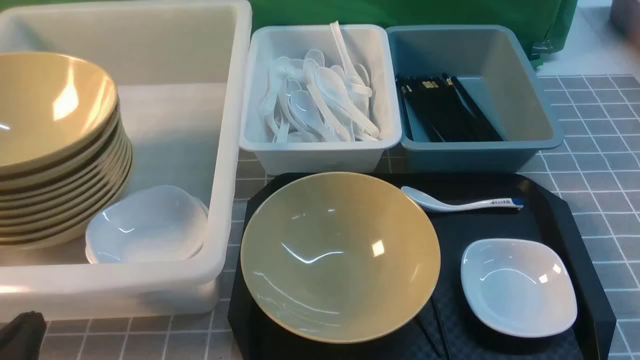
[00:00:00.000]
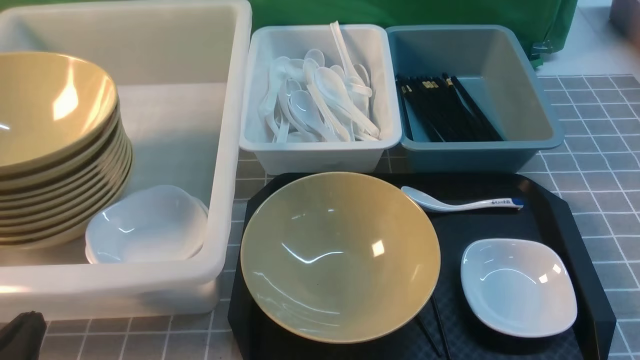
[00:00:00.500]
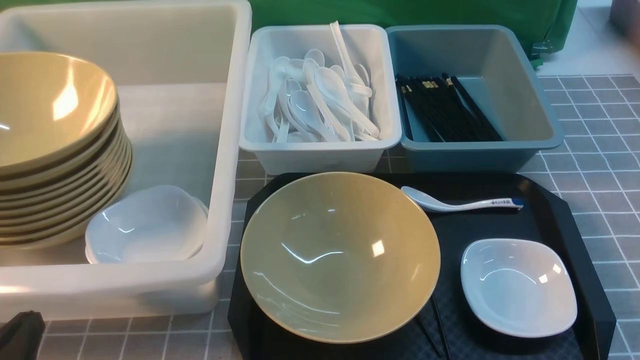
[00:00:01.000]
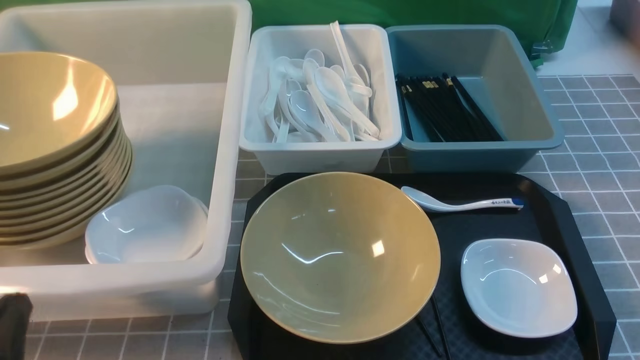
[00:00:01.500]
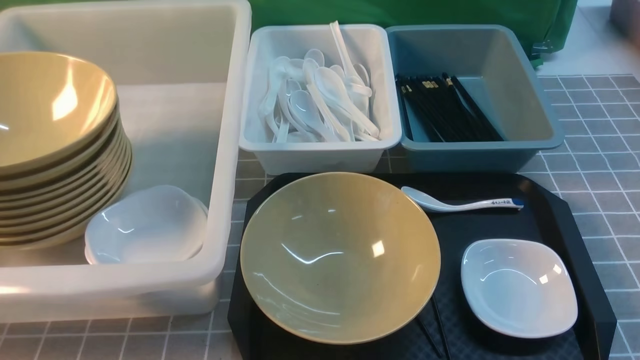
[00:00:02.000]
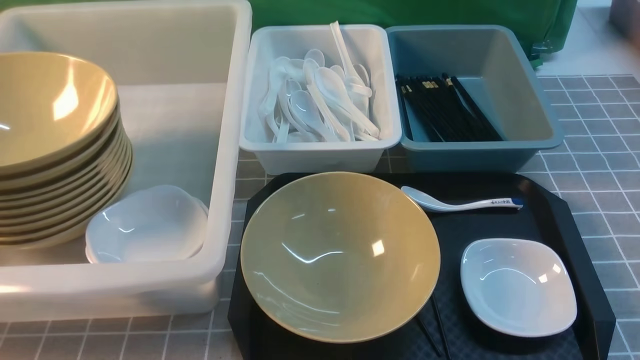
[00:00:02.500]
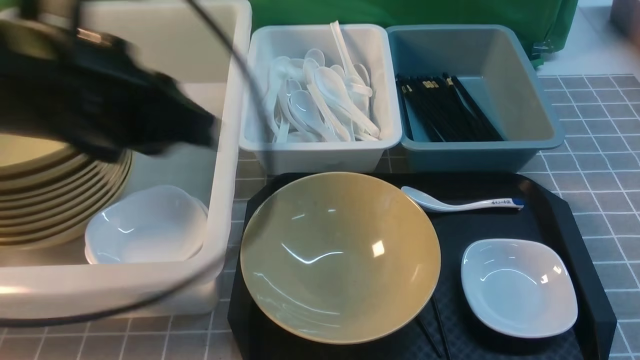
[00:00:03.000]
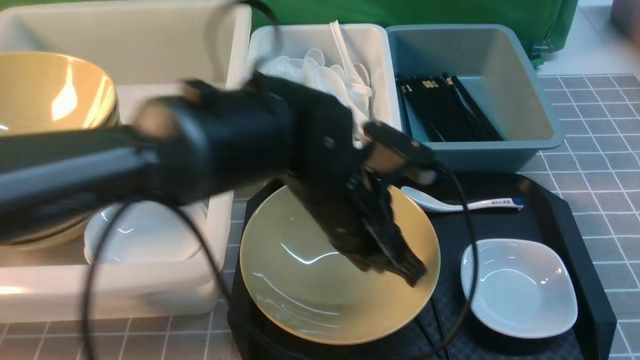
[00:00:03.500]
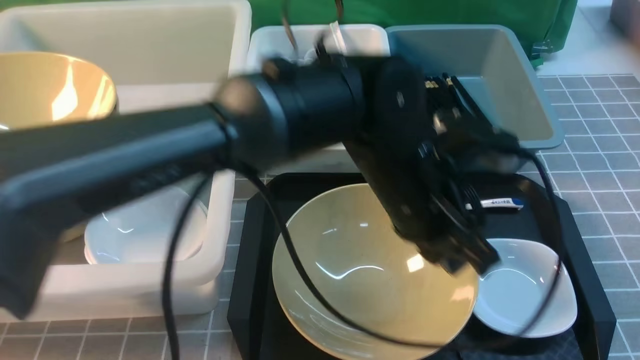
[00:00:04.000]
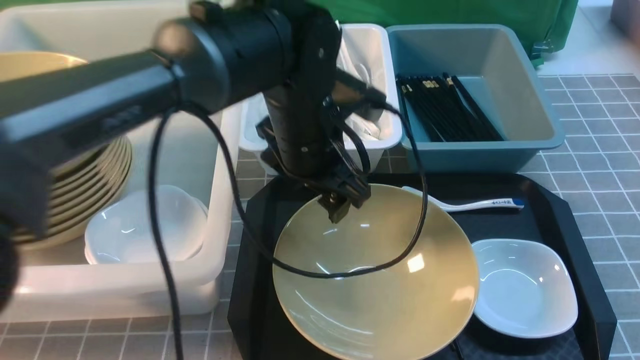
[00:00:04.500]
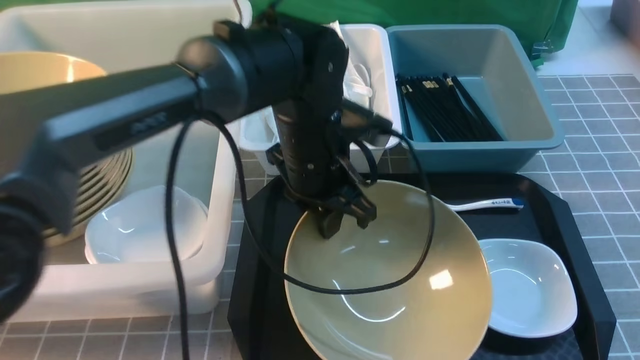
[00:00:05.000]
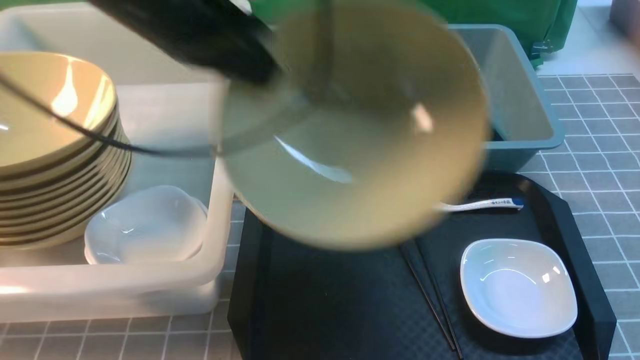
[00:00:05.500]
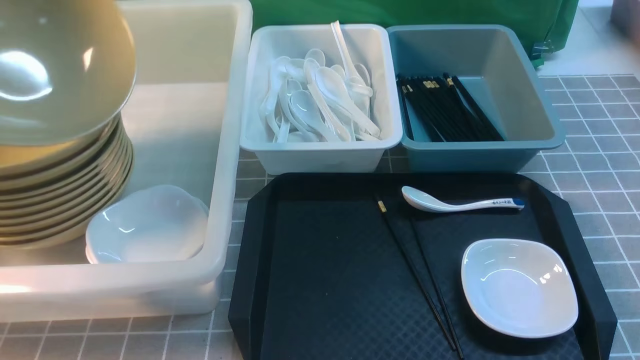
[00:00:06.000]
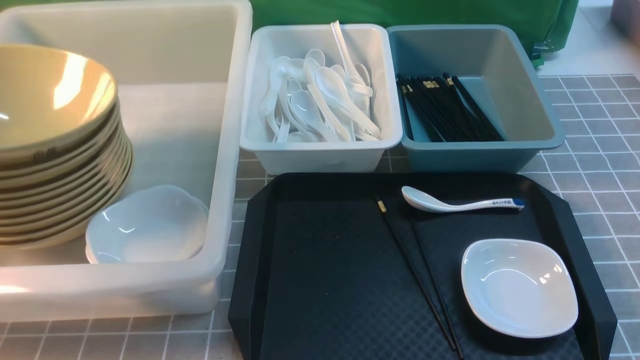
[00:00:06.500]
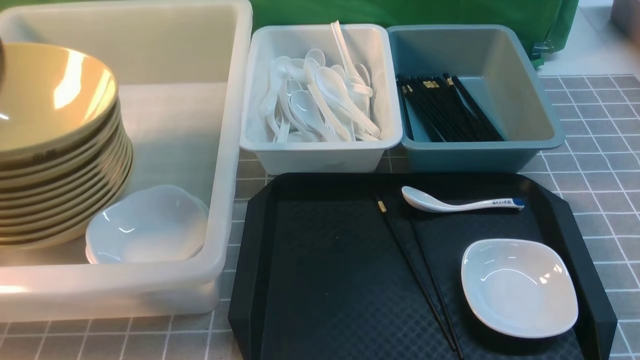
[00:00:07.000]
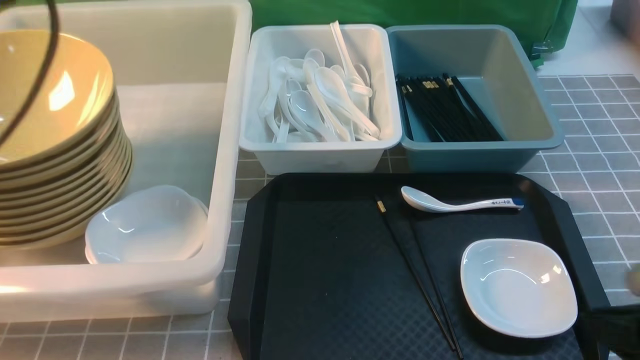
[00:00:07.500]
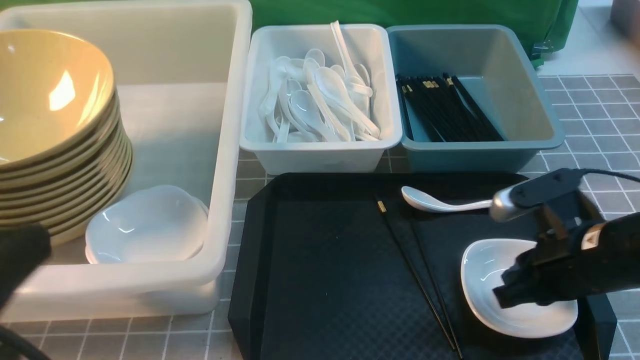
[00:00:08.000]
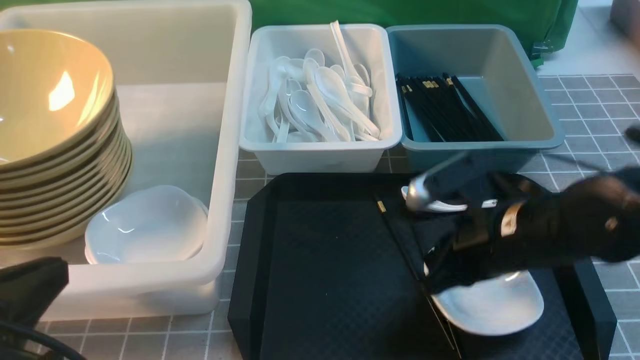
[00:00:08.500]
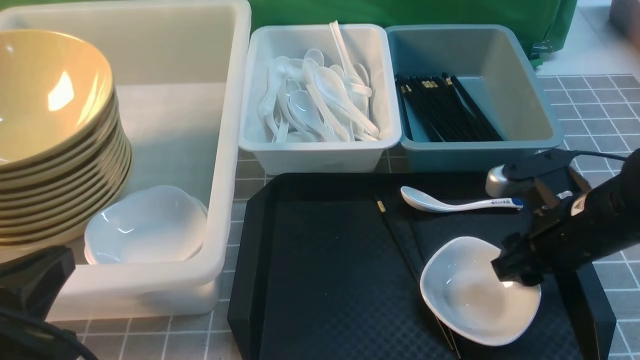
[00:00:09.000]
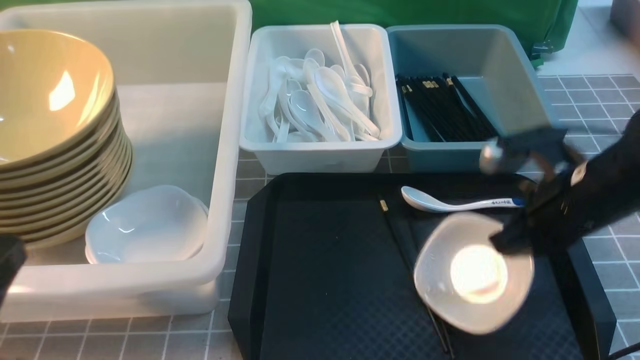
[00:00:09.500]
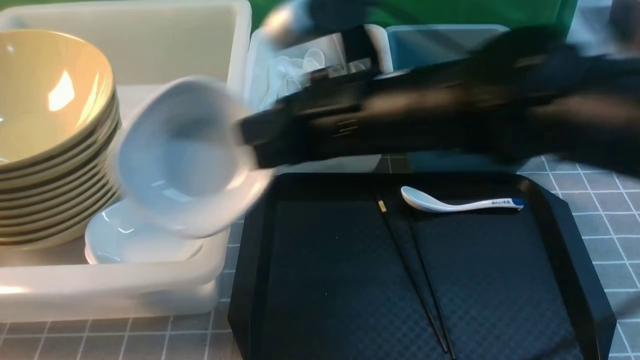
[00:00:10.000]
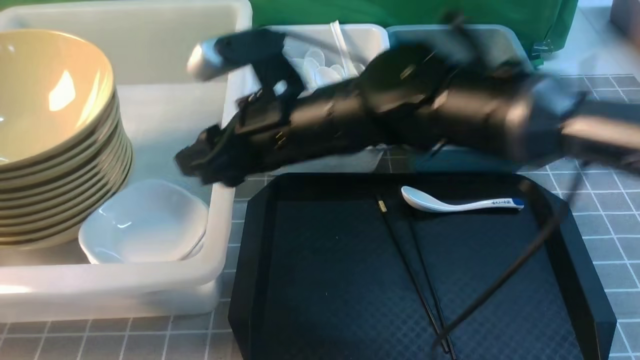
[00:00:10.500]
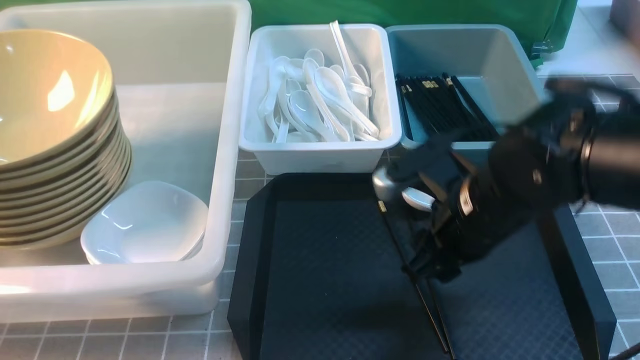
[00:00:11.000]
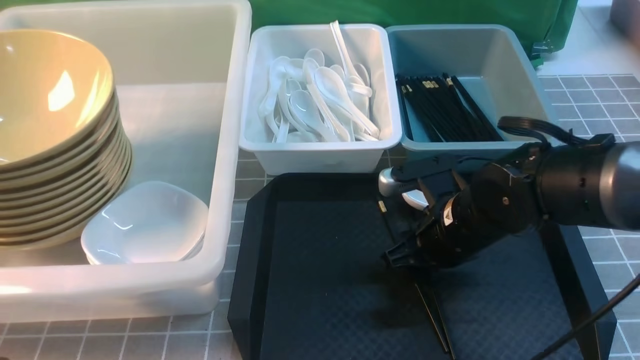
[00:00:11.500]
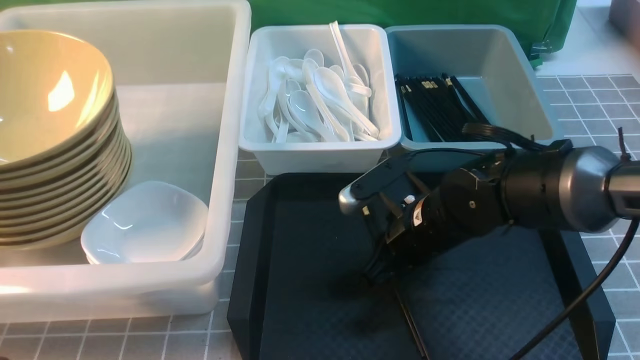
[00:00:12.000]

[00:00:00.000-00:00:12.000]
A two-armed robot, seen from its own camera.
Task of the whole recording: on grey table put chopsticks spoon bowls plates into blue grey white boxes.
Step, 00:00:00.000 to 00:00:05.000: use the left arm to grab the yellow noodle bowl on the left.
Step, 00:00:05.500 to 00:00:06.500: use the left arm to put the noodle bowl into the large storage box on the left.
Step, 00:00:07.000 to 00:00:09.500: use the right arm to grab the plate.
00:00:00.000 to 00:00:02.000: The left gripper travels upward by some 10 cm.
00:00:02.000 to 00:00:04.000: The right gripper goes upward and returns, about 10 cm each way, and closes. Meanwhile the left gripper travels to the right and forward by roughly 40 cm, and opens its fingers.
00:00:04.000 to 00:00:06.000: The left gripper goes approximately 40 cm to the left, and opens, then closes once more.
00:00:06.000 to 00:00:08.000: The left gripper moves backward and to the right, approximately 25 cm, and opens, then closes once more, while the right gripper travels forward, to the left and downward by some 15 cm.
00:00:08.000 to 00:00:10.000: The left gripper travels downward by roughly 5 cm, while the right gripper goes left and right, roughly 20 cm each way, reversing 2 times, and opens and closes again.
00:00:10.000 to 00:00:12.000: The right gripper shifts about 15 cm downward and to the right, and opens.

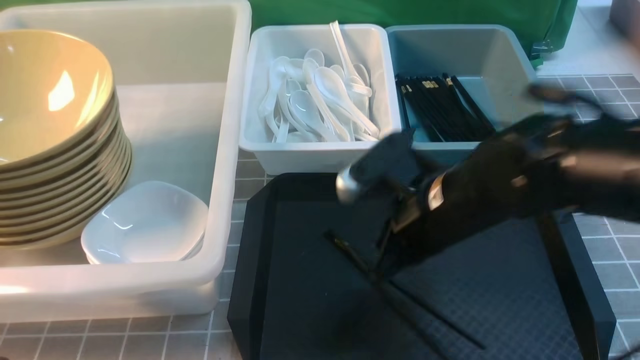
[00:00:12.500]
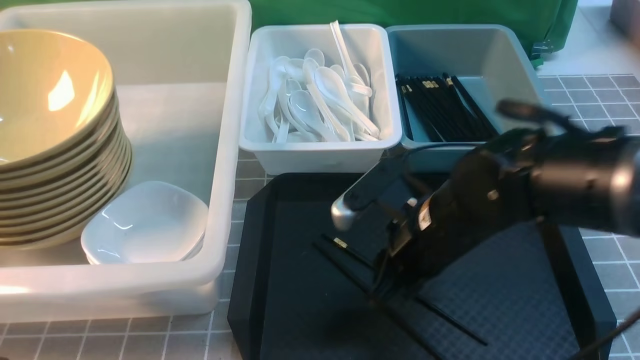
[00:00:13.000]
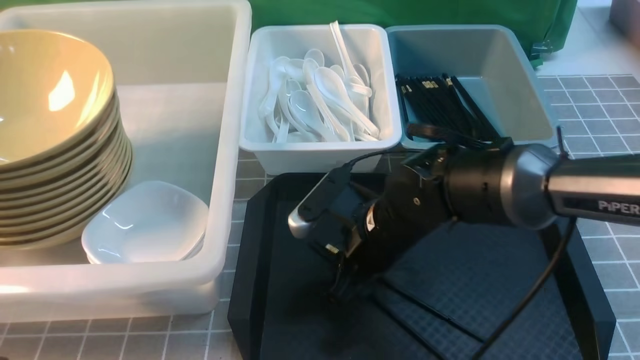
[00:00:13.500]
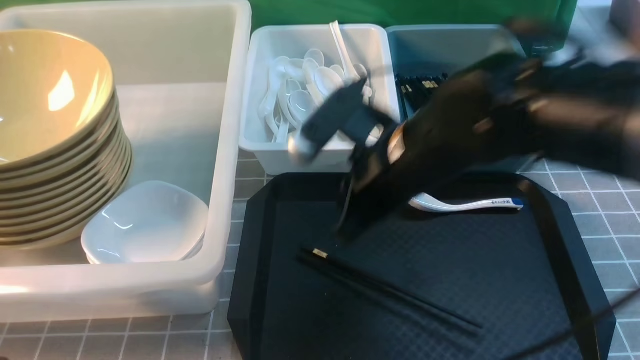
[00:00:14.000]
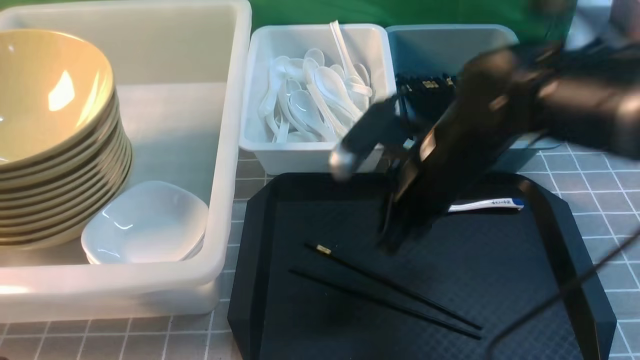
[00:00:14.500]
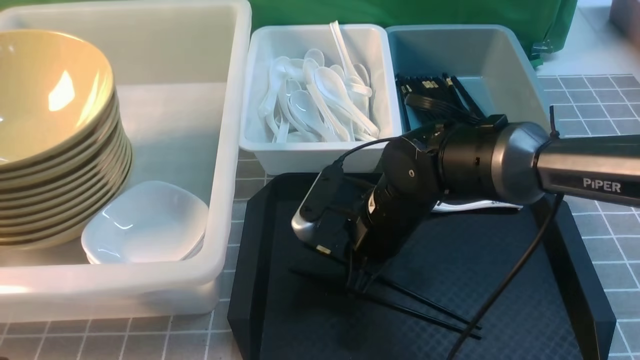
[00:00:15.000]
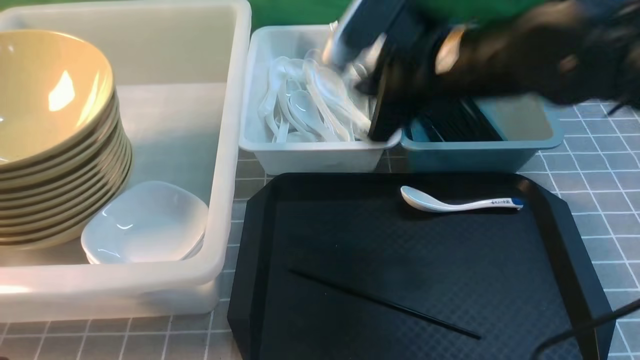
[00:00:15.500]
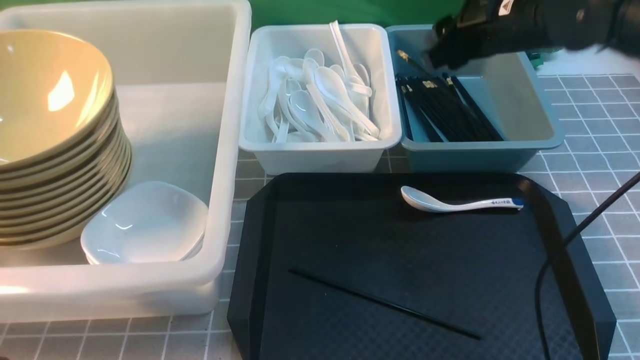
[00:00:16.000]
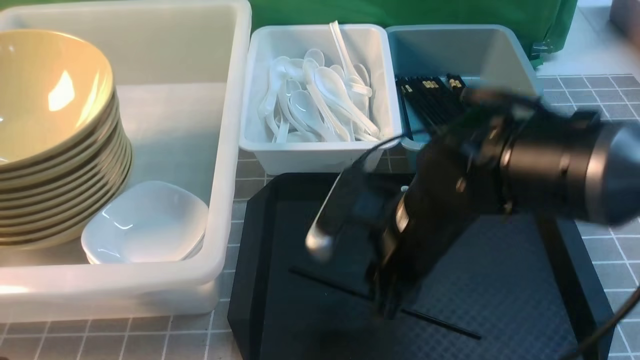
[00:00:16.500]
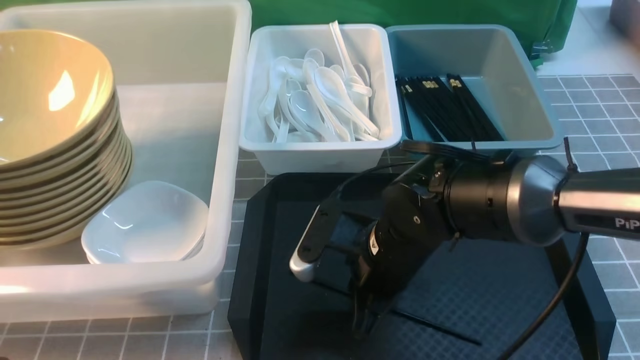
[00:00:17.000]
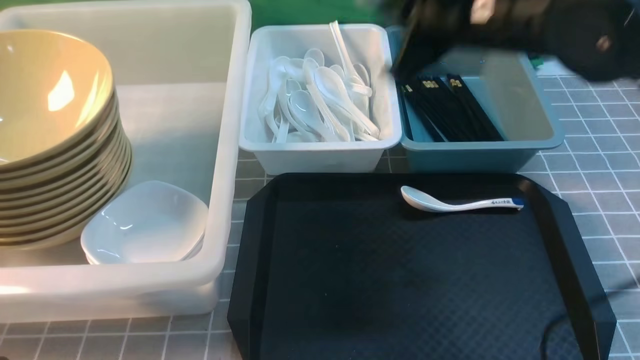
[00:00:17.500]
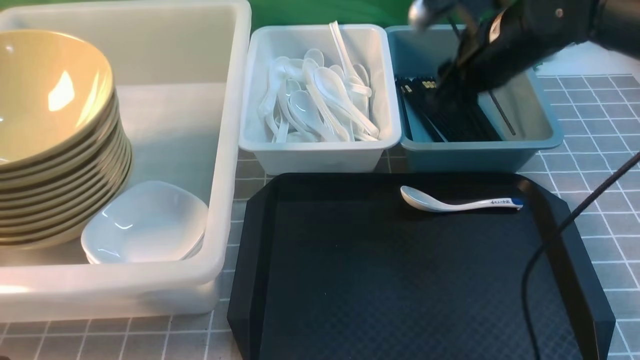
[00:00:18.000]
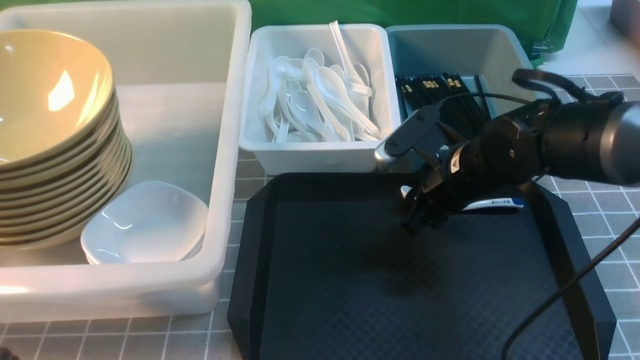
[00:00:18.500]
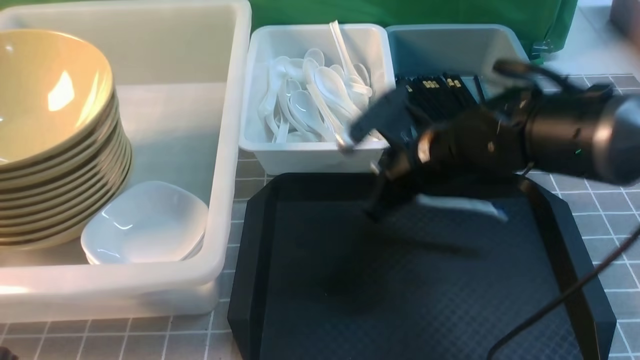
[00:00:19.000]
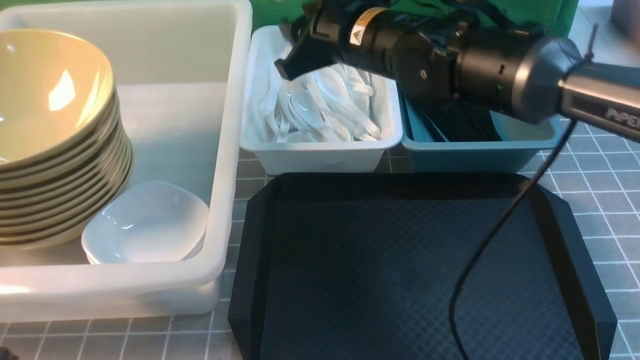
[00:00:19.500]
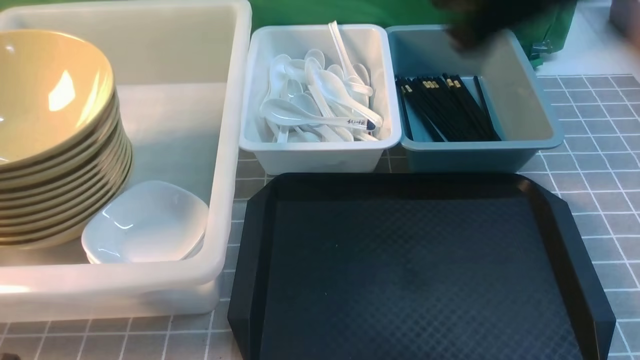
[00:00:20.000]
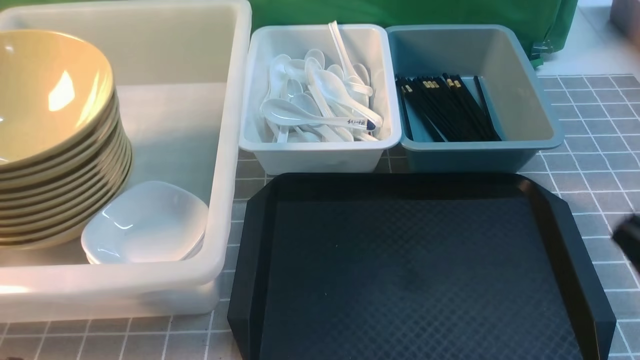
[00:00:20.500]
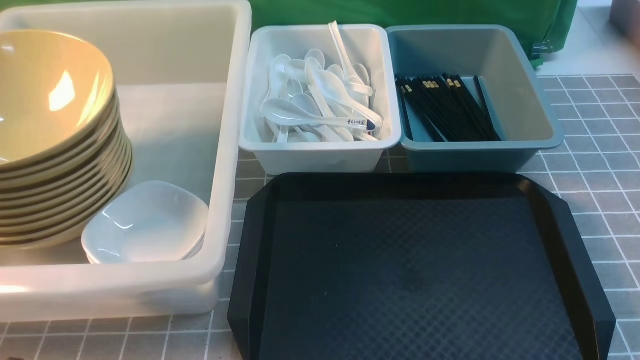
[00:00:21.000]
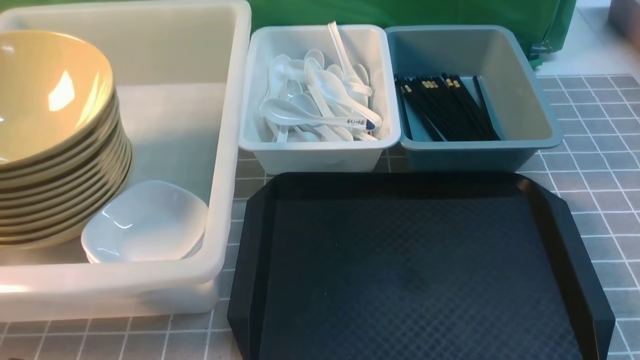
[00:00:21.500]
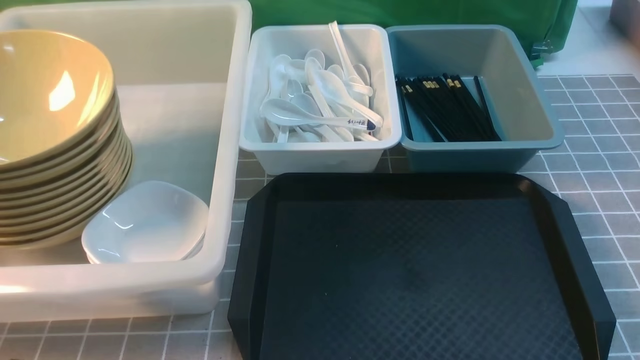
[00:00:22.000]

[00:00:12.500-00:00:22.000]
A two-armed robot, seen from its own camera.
Task of the whole recording: on grey table put chopsticks spoon bowls plates into blue grey white boxes.
Step, 00:00:12.500 to 00:00:15.000: use the right arm to grab a chopstick.
Step, 00:00:16.500 to 00:00:17.000: use the right arm to grab a chopstick.
Step, 00:00:17.500 to 00:00:18.000: use the right arm to put a chopstick into the small storage box on the right.
Step, 00:00:18.500 to 00:00:19.000: use the right arm to grab the soup spoon in the middle.
00:00:12.500 to 00:00:14.500: The right gripper moves about 5 cm downward and comes back, and opens its fingers.
00:00:14.500 to 00:00:16.500: The right gripper goes up and down, roughly 15 cm each way, reversing 2 times.
00:00:16.500 to 00:00:18.000: The right gripper heads forward, to the right and upward, covering approximately 15 cm, and closes, then reopens.
00:00:18.000 to 00:00:20.000: The right gripper is displaced backward and upward by about 20 cm, and closes its fingers.
00:00:20.000 to 00:00:22.000: The right gripper moves downward, backward and to the right, approximately 35 cm.
